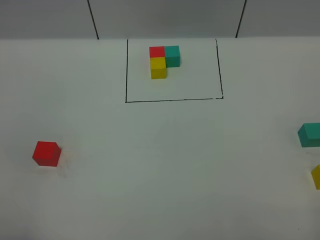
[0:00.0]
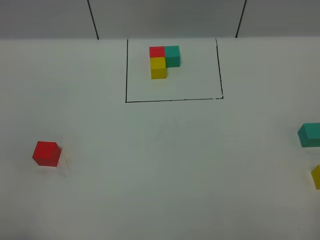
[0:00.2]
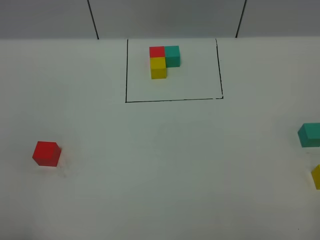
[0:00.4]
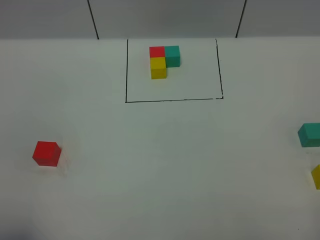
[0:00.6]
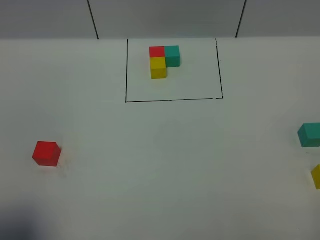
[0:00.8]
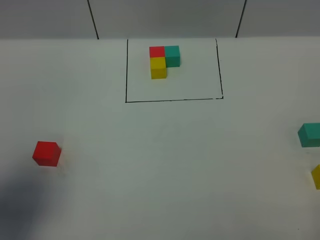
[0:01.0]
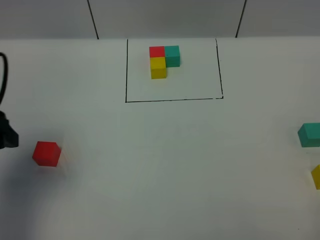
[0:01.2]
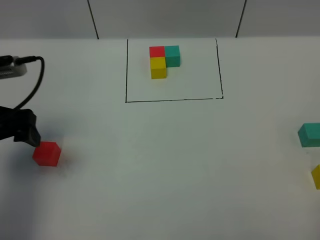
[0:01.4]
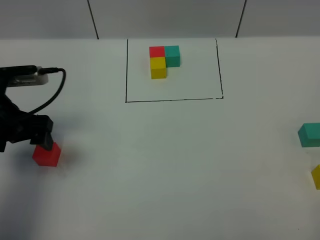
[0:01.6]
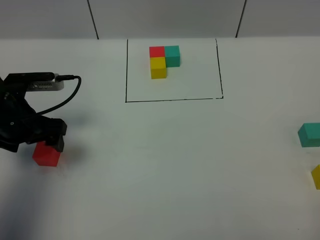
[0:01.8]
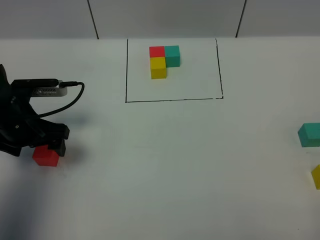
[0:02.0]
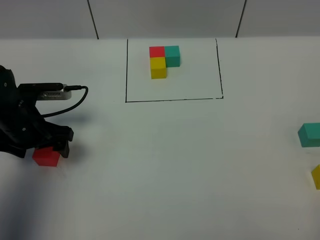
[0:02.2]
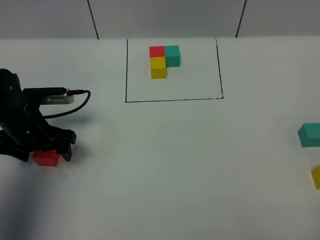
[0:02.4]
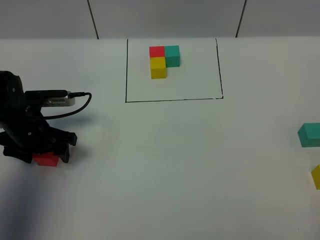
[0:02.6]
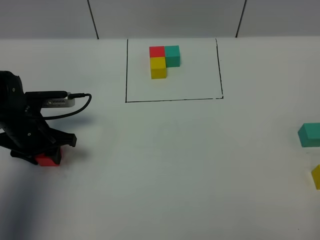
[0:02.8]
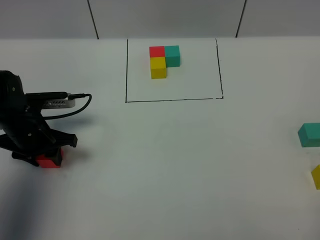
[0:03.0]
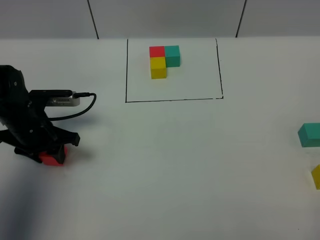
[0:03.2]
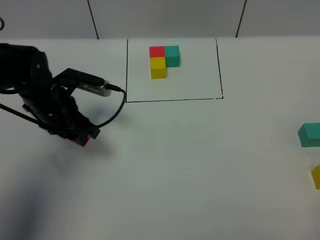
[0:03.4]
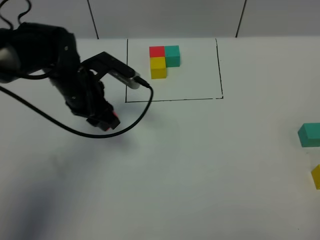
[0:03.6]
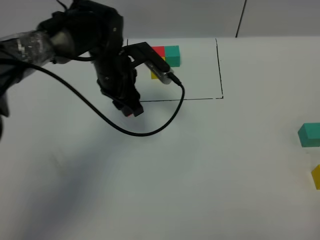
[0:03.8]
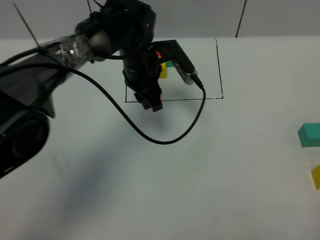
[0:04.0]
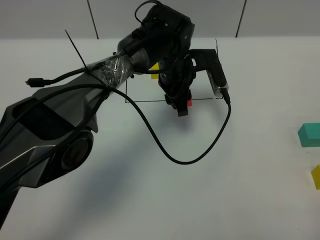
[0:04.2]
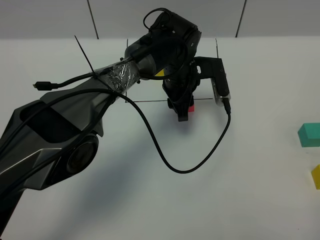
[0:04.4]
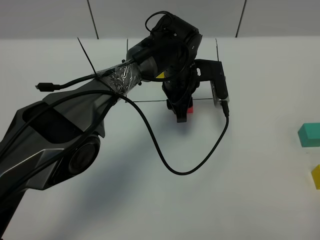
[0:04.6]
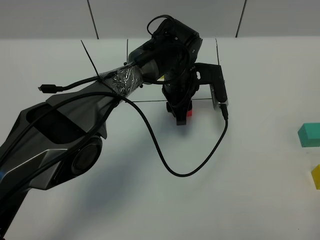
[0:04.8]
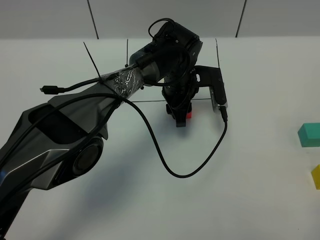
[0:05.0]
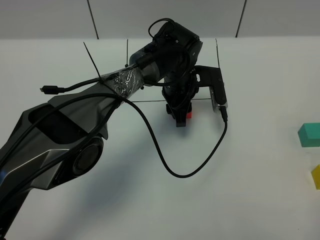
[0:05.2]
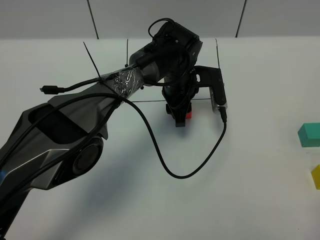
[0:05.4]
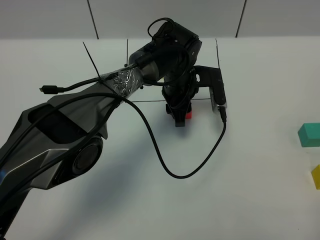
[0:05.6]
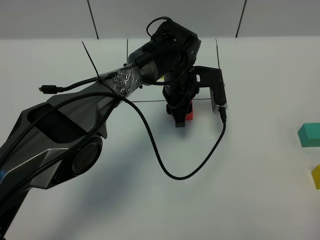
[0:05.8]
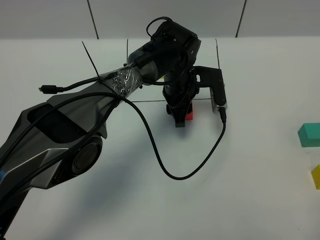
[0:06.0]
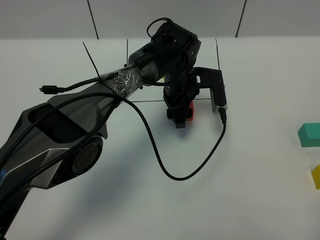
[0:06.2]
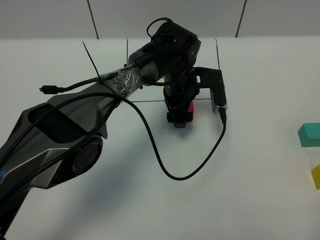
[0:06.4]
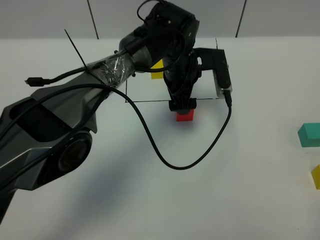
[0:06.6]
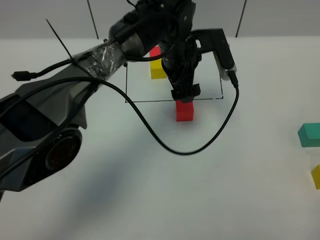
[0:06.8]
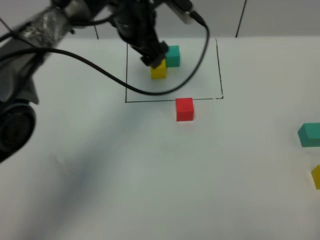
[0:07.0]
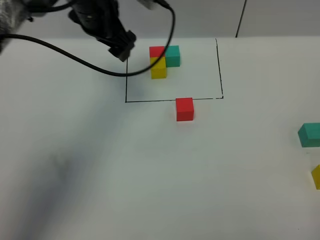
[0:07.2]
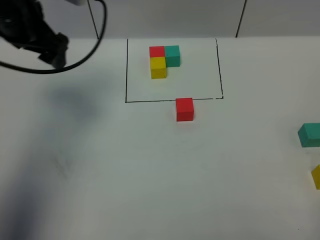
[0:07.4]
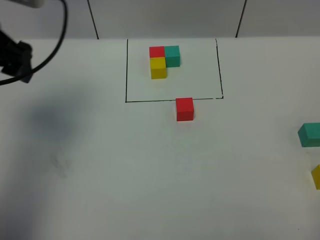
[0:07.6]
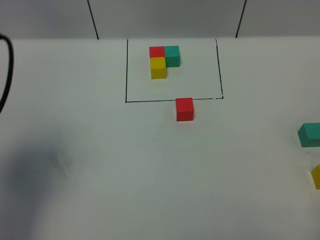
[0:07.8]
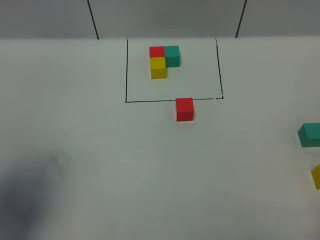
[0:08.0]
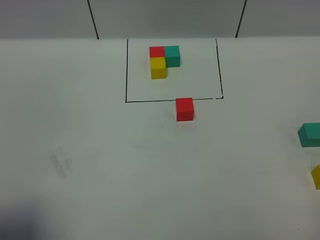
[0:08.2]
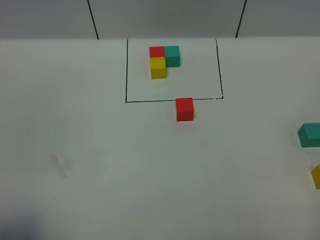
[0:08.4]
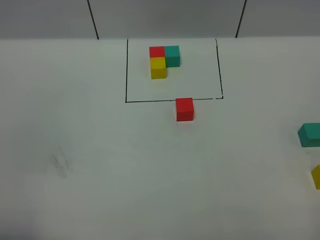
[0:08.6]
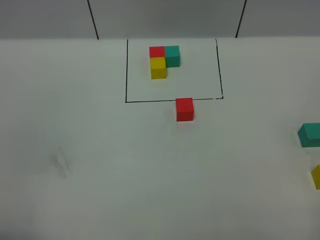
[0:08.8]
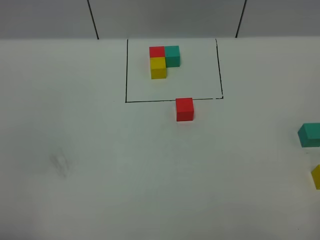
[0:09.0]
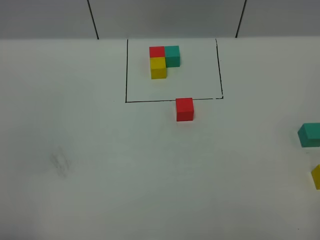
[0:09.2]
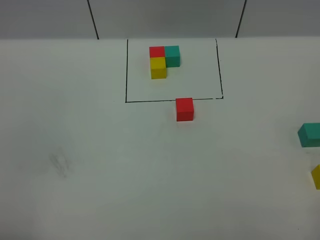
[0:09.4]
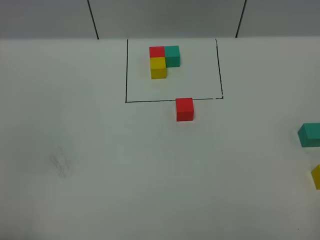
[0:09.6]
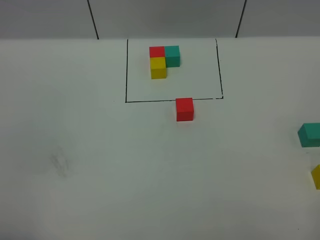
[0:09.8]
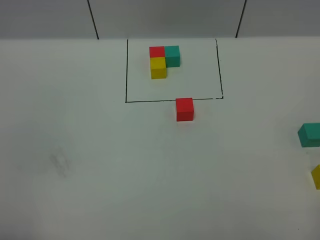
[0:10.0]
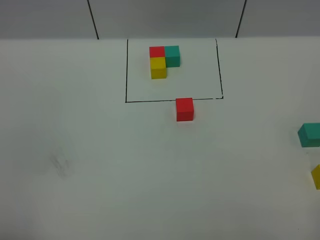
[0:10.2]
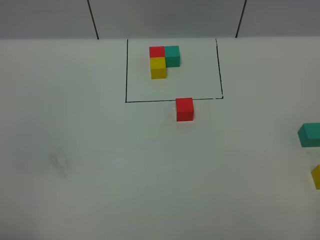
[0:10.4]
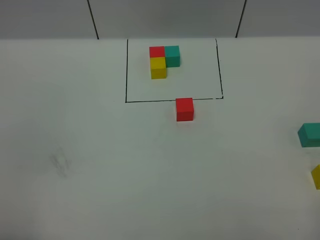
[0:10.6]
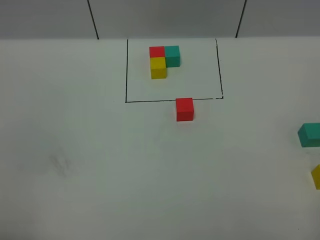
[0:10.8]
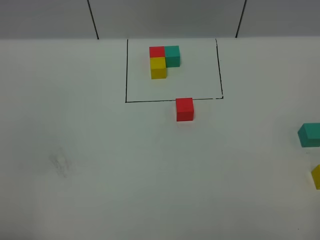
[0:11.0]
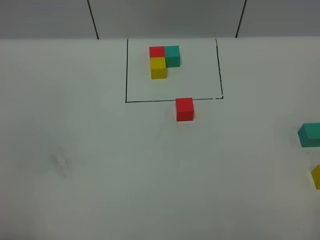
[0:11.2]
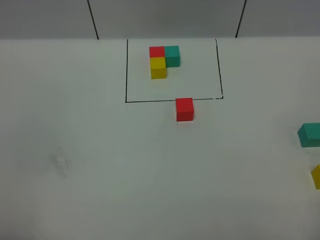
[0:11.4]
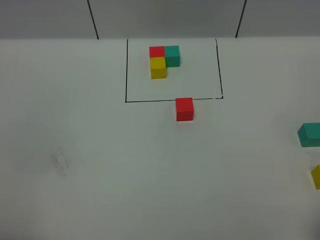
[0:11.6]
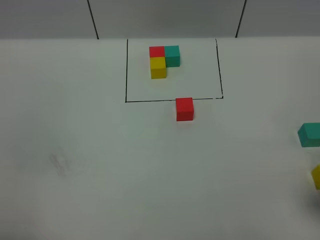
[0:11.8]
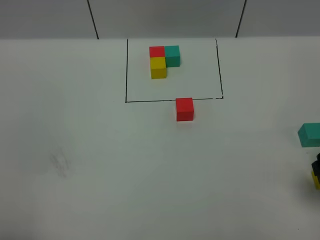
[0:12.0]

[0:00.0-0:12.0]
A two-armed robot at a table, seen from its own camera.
Task of the whole recording: According to the building block template in front, assemble the scattered blocks together.
Step, 0:00.0 to 0:06.2: Put the red build block in the center of the table.
0:00.0 to 0:01.6: The left gripper goes some 30 cm forward.
0:01.6 to 0:03.0: The left gripper moves downward, some 10 cm, and closes.
0:03.0 to 0:04.4: The left gripper is displaced to the right by roughly 30 cm.
0:04.4 to 0:06.0: The grippers stay close to where they were, moving slightly.
0:06.0 to 0:07.6: The left gripper travels to the left and upward by roughly 35 cm, and opens up.
0:07.6 to 0:09.0: The left gripper goes about 30 cm backward.
0:09.0 to 0:10.4: Both grippers stay put.
0:10.4 to 0:12.0: The right gripper moves forward, some 20 cm.

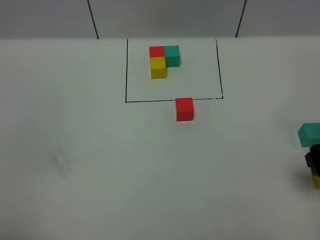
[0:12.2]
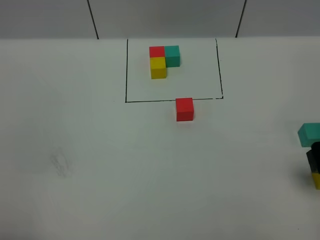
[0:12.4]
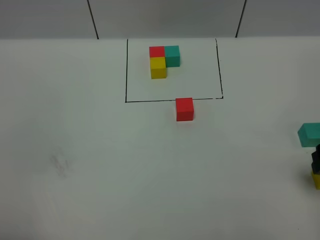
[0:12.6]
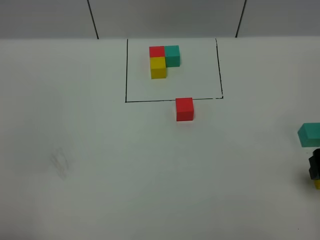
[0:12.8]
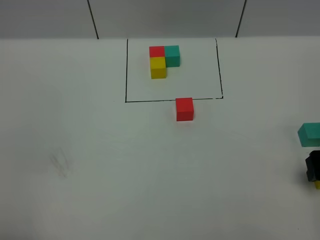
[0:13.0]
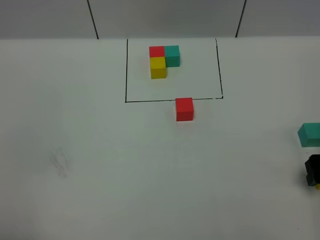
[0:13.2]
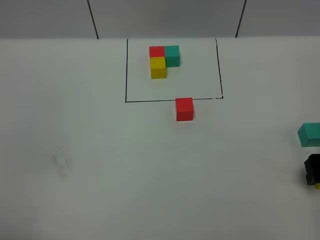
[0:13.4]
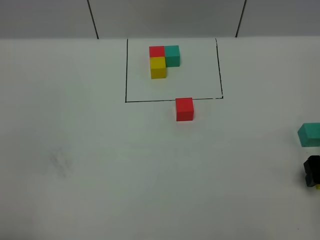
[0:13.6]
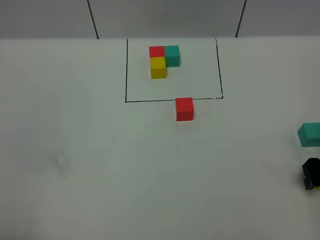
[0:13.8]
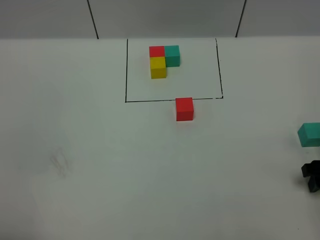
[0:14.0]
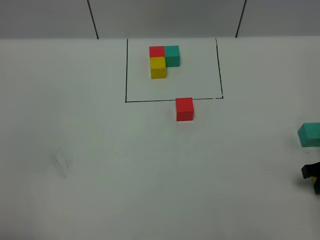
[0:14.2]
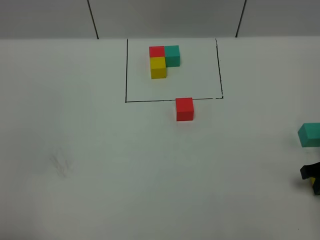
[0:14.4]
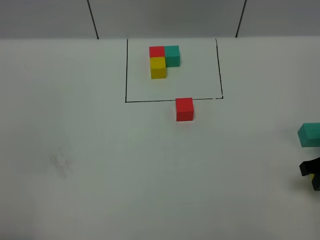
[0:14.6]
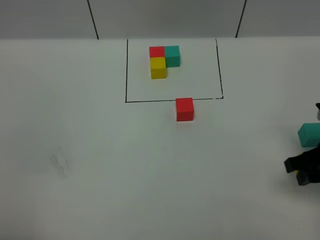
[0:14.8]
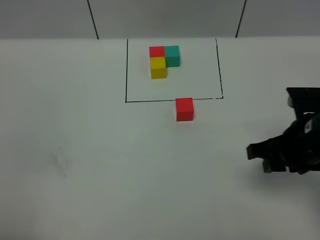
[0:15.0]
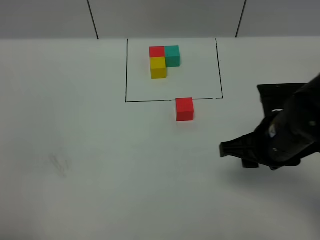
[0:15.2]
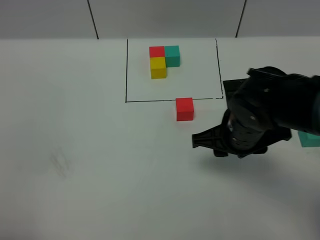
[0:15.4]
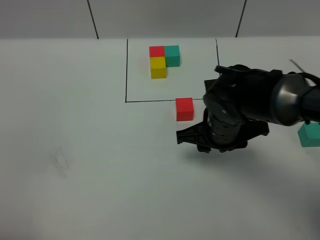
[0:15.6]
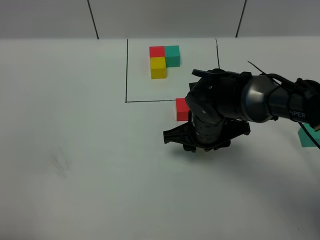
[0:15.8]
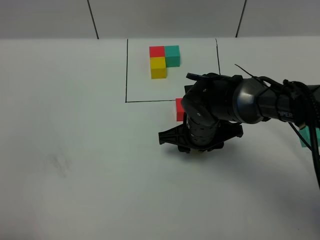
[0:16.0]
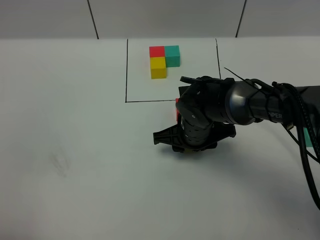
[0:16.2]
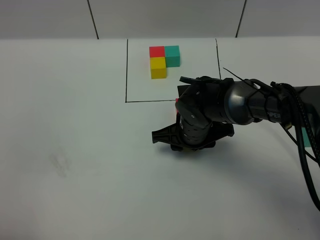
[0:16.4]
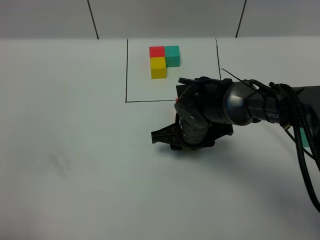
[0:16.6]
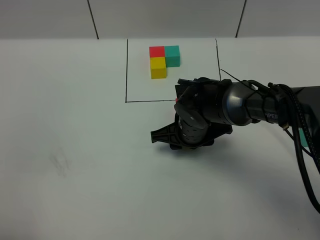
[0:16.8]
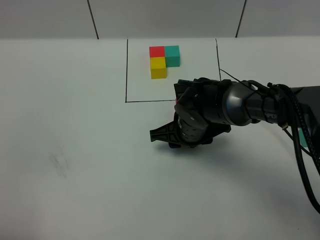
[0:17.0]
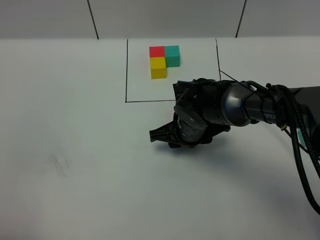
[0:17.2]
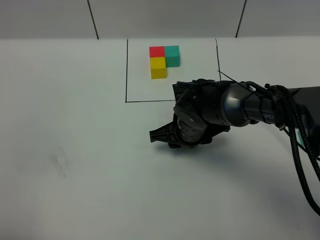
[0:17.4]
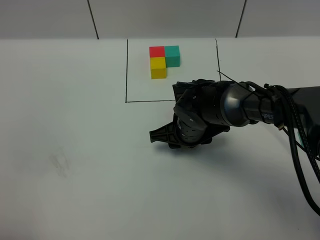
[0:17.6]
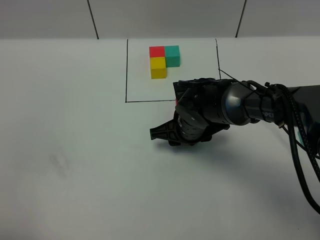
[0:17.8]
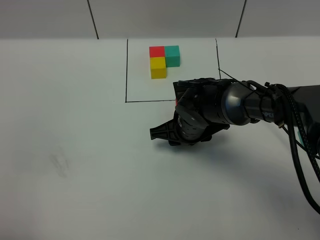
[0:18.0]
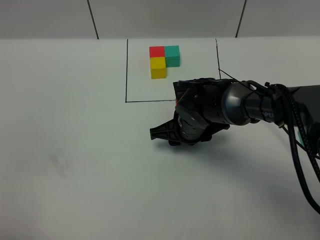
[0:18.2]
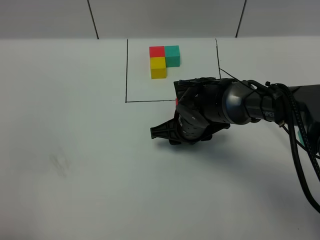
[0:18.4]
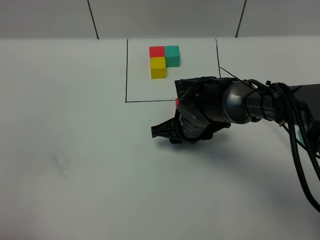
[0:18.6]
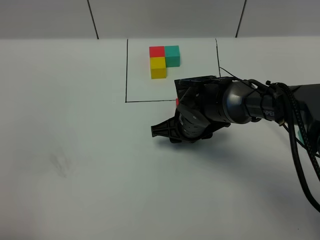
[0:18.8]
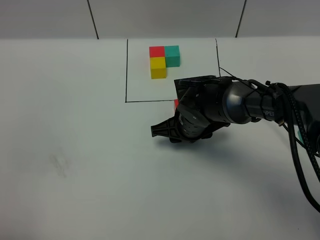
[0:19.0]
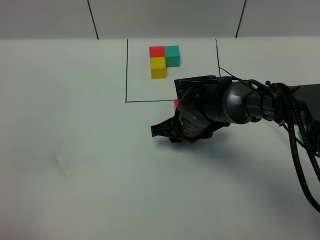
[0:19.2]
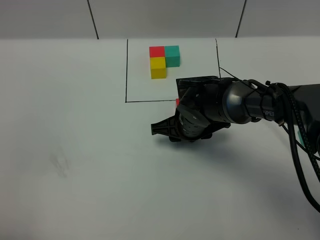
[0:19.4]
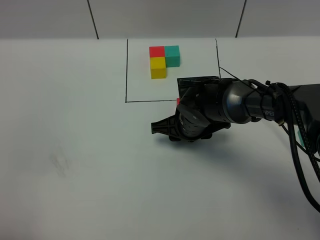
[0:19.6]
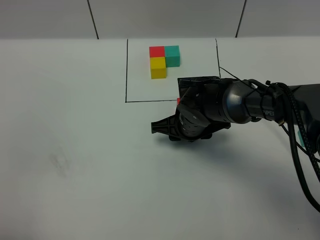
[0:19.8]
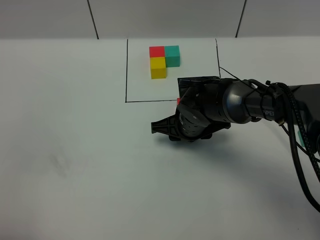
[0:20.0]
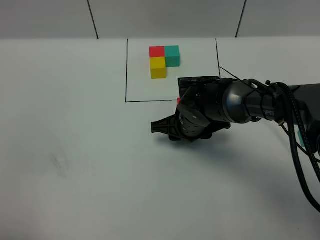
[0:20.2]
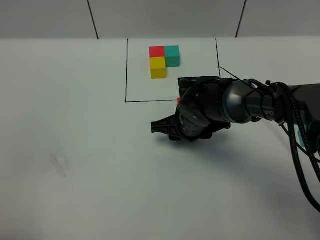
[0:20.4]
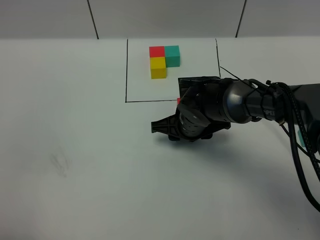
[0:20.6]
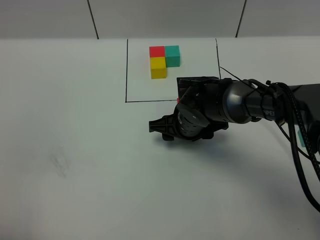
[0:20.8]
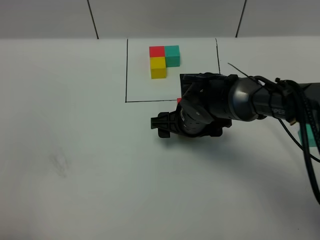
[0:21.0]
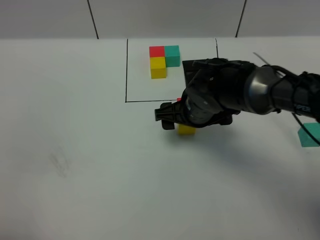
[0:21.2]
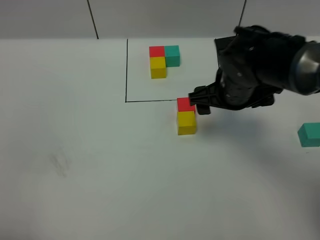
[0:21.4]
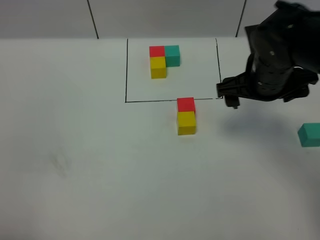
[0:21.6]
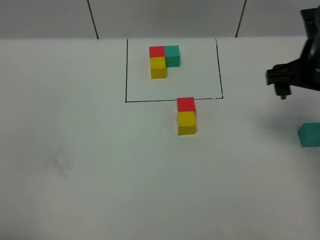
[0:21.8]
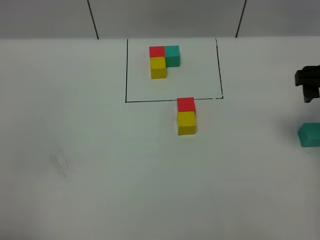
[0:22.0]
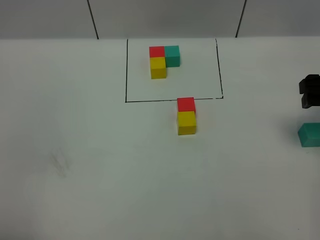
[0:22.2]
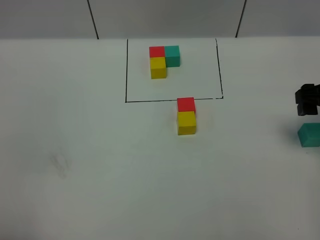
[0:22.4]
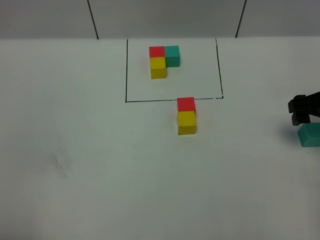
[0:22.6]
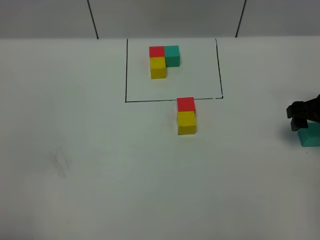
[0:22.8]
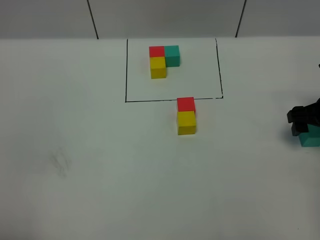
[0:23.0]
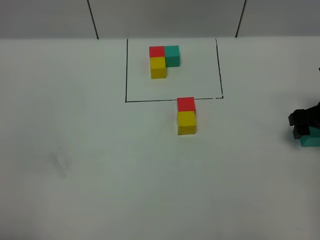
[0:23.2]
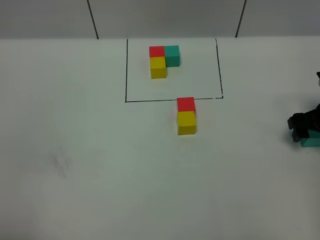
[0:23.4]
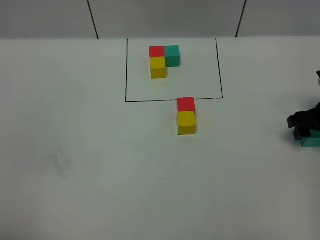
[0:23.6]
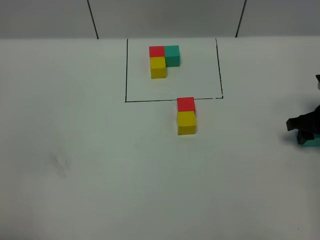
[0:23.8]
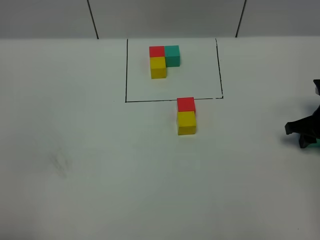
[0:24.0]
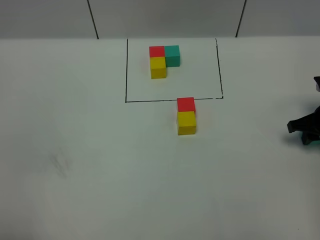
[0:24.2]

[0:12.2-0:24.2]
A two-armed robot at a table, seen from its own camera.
Task of the whole recording: According to the building block template in front, assemble the scattered blocks together.
Step, 0:12.2 to 0:20.6: Put the yellow build block on the behind of the red build block.
0:12.2 to 0:13.8: The right gripper moves downward, about 10 cm.
0:13.8 to 0:15.2: The right gripper moves to the left and upward, about 20 cm, and closes up.
0:15.2 to 0:16.6: The right gripper goes about 15 cm to the left, downward and forward.
0:16.6 to 0:18.2: Neither gripper changes place.
0:18.2 to 0:19.8: Neither gripper changes place.
0:19.8 to 0:21.2: The right gripper shifts some 5 cm upward, and opens its fingers.
0:21.2 to 0:22.6: The right gripper goes approximately 25 cm to the right.
0:22.6 to 0:24.2: The right gripper is displaced downward by some 5 cm, and closes up.
